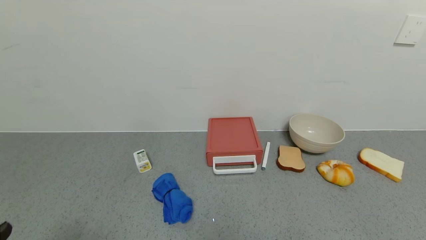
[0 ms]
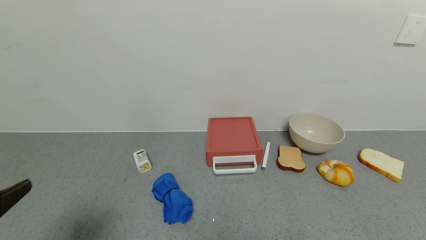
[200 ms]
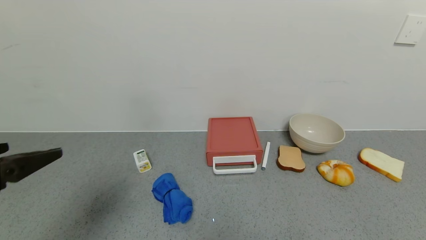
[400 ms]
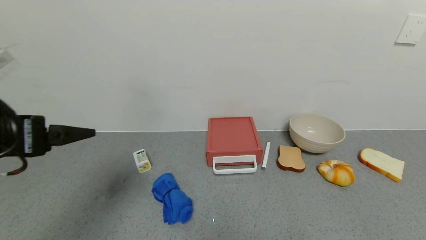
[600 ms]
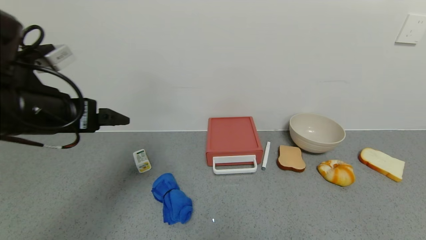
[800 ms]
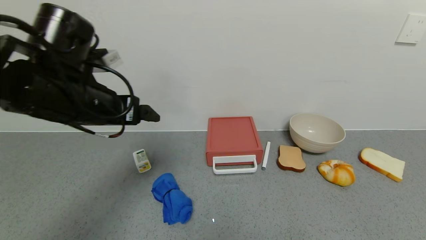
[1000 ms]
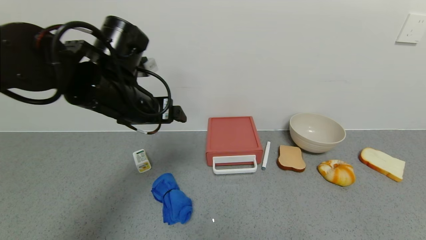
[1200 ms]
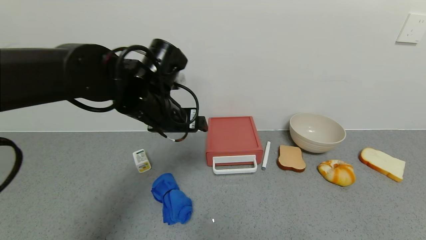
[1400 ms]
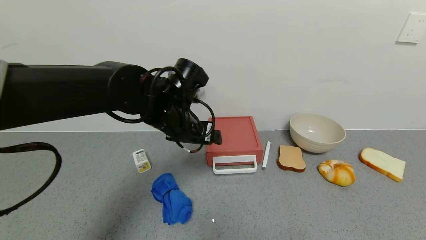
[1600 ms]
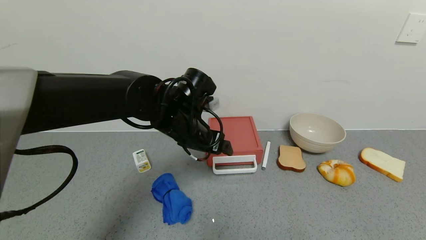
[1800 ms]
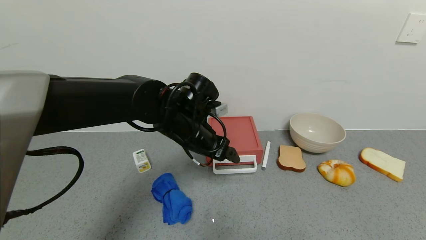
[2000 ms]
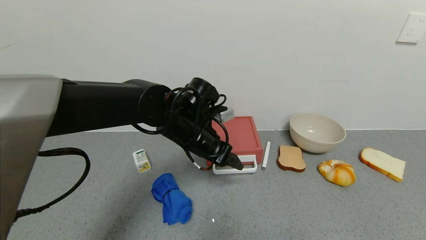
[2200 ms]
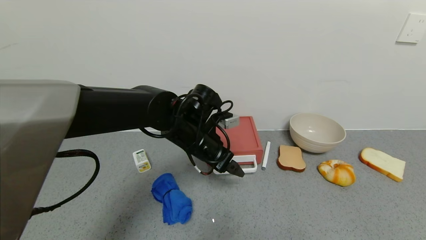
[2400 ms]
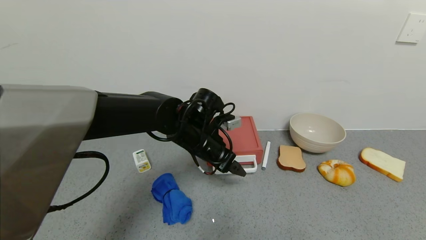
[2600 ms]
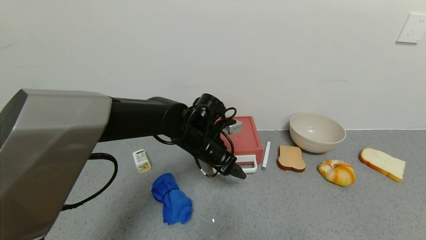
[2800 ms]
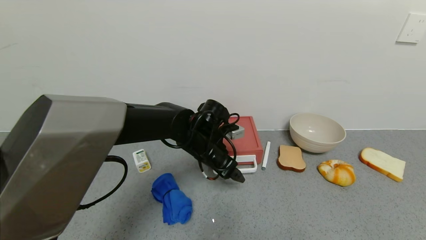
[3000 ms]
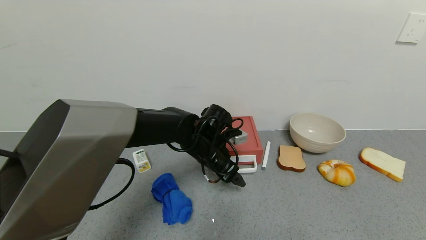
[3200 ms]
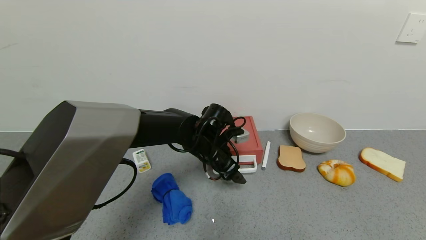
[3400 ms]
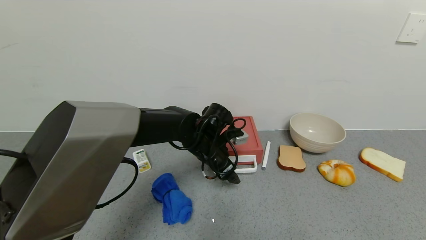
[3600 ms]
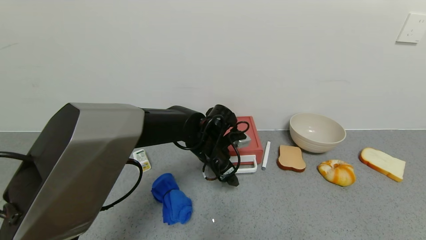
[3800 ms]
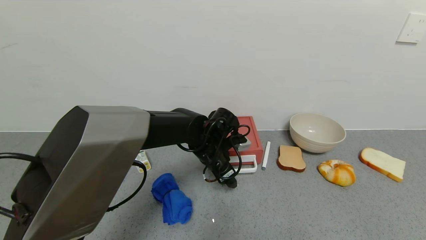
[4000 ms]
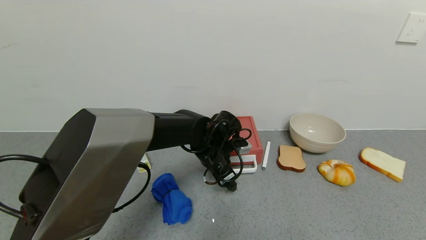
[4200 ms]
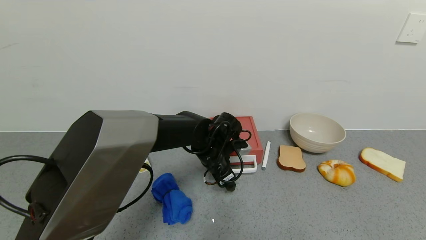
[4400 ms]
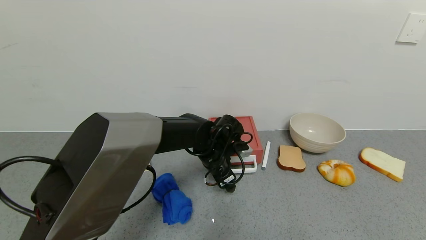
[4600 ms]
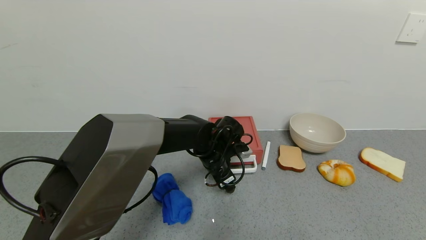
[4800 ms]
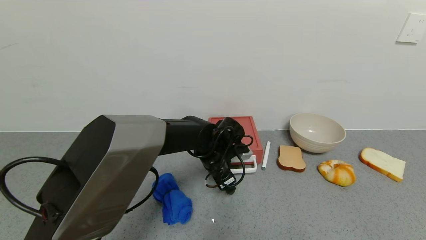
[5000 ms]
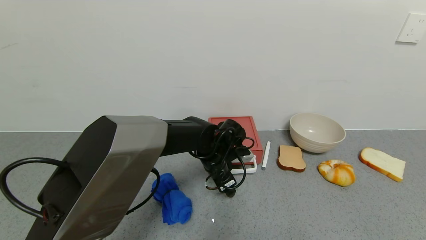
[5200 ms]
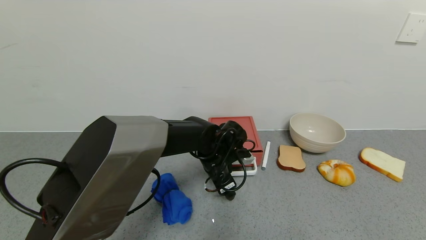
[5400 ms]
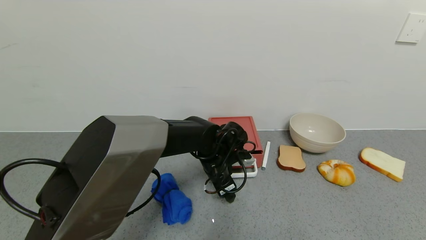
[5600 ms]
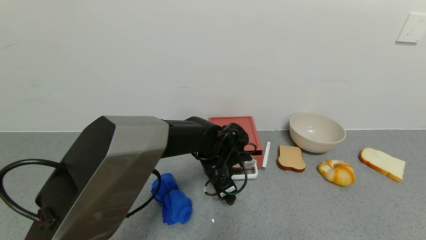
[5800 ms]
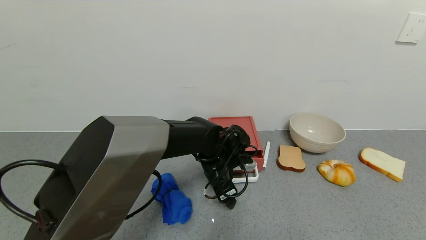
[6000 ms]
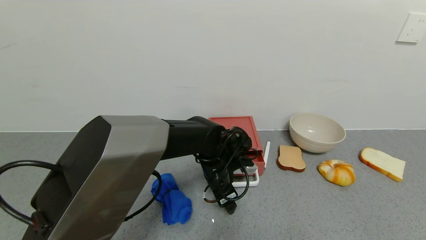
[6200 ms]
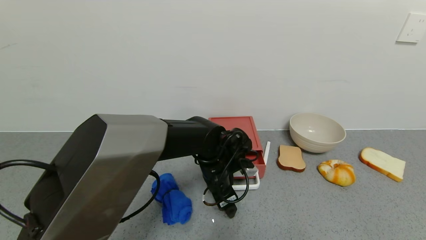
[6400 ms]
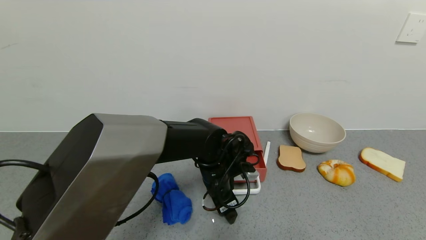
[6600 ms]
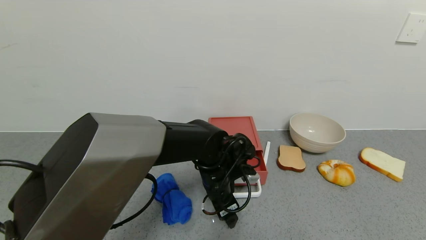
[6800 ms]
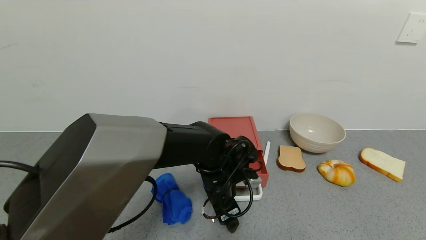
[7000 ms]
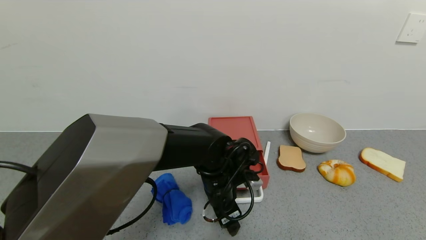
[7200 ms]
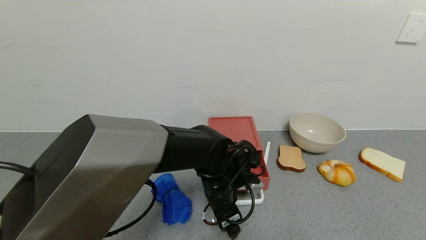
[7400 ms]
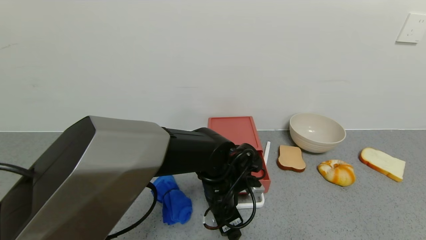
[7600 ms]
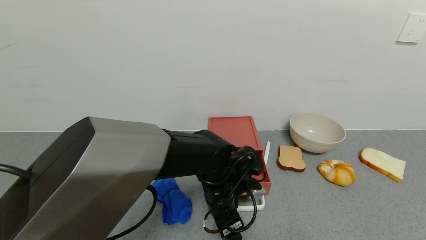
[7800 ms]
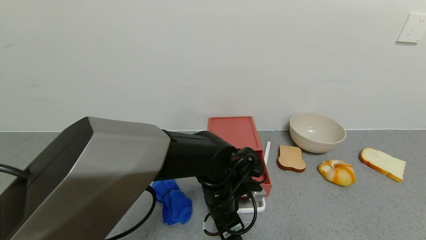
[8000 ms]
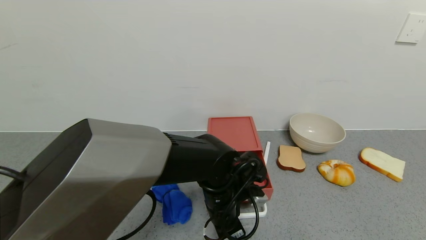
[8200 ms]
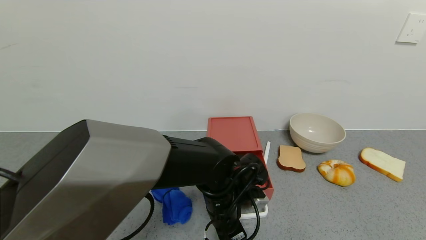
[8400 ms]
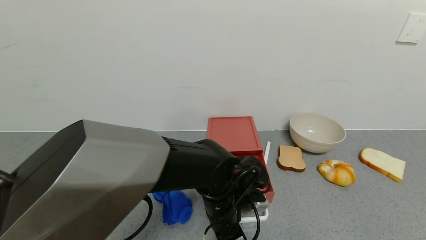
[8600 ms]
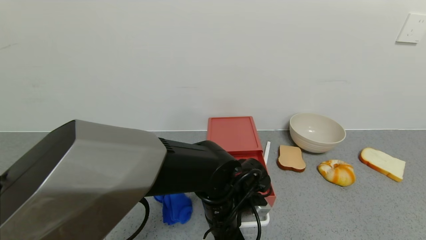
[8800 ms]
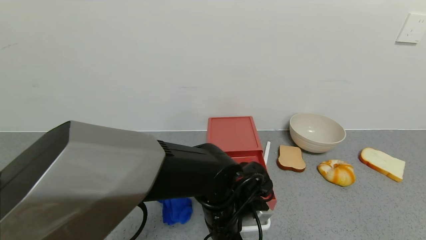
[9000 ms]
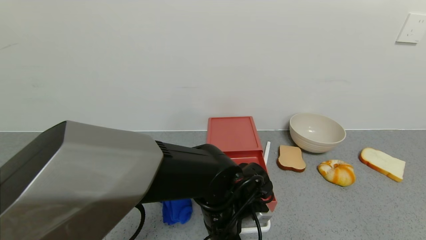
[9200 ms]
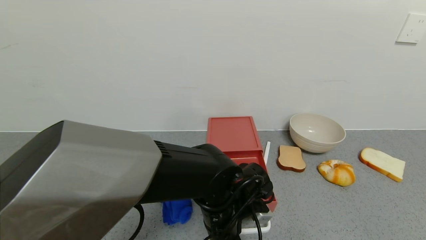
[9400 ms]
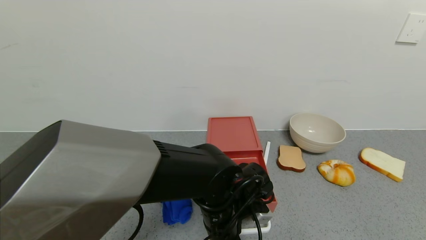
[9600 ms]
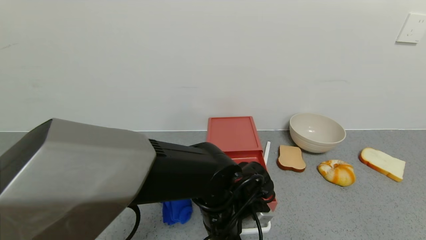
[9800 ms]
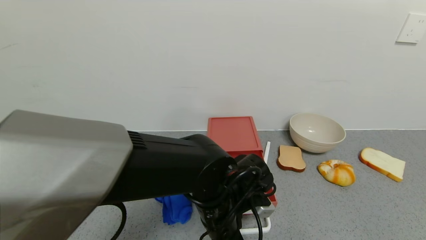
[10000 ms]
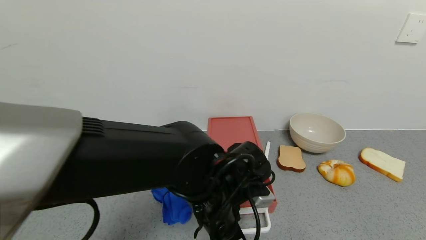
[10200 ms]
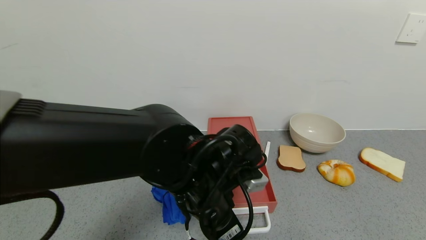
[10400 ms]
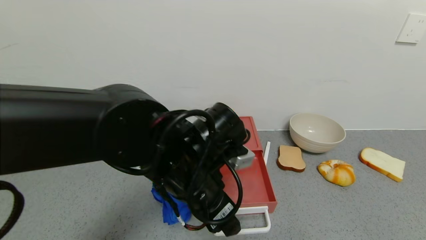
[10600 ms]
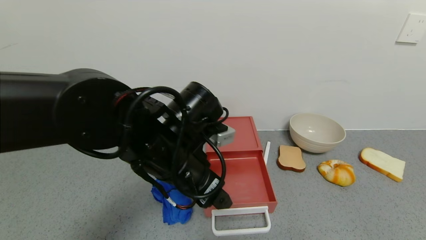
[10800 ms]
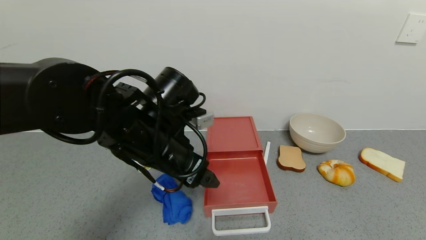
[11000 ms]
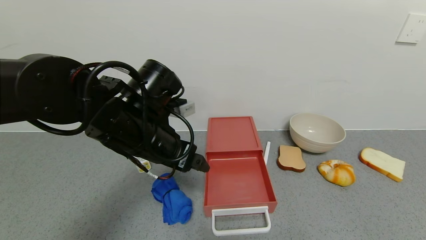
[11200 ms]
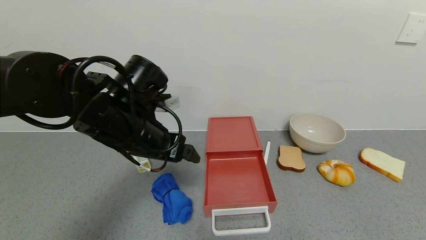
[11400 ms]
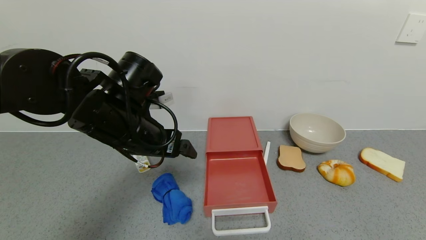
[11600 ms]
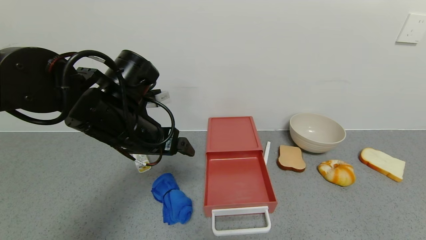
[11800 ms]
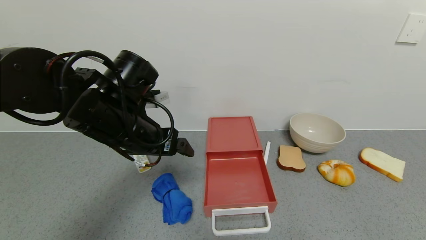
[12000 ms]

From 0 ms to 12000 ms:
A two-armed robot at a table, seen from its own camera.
Task of the whole recording: use the gripper to open the drawer and close the red drawer.
Step, from 0 ms to 10600 ms: Open the red drawer with the left gripper.
From 0 ms to 1600 ms: The left gripper goes about 40 cm forward and to the right.
From 1600 ms to 3000 ms: The left gripper heads downward, covering roughly 10 cm.
From 4400 ms to 6000 ms: The grippers move only a little.
From 6000 ms to 7600 ms: The left gripper is displaced backward by about 5 cm.
From 7600 ms to 9000 ms: The grippers move only a little.
From 9000 ms to 10400 ms: The left gripper is displaced upward by approximately 10 cm.
From 10400 ms to 12000 ms: The left gripper shifts approximately 15 cm to the left, upward and forward.

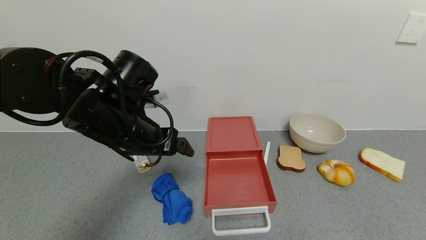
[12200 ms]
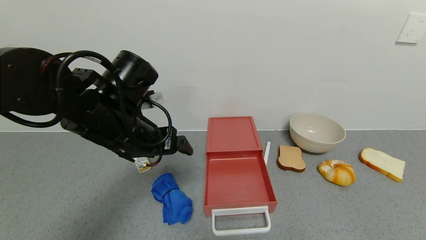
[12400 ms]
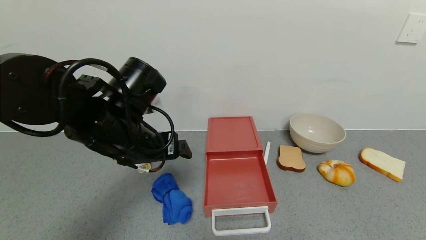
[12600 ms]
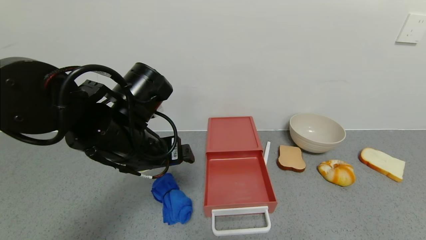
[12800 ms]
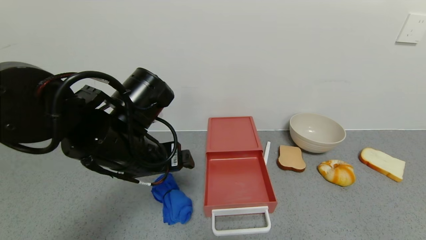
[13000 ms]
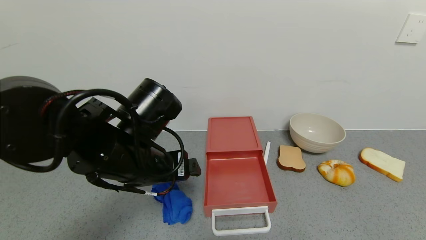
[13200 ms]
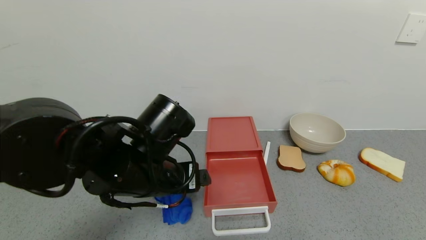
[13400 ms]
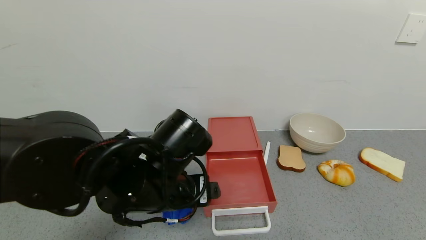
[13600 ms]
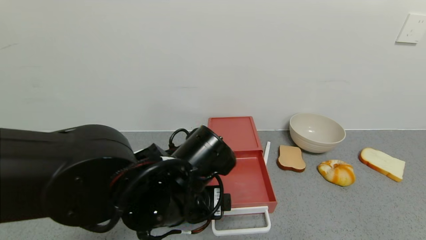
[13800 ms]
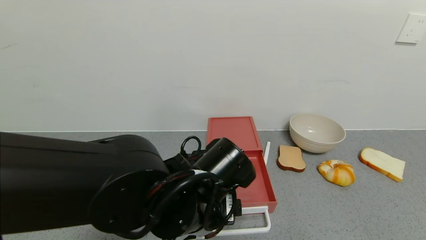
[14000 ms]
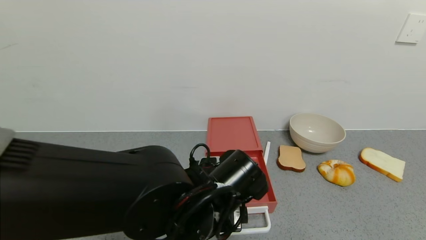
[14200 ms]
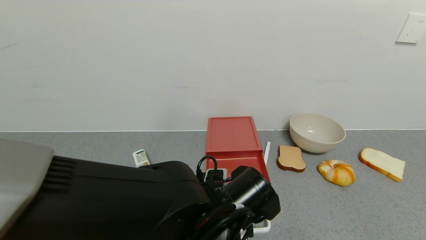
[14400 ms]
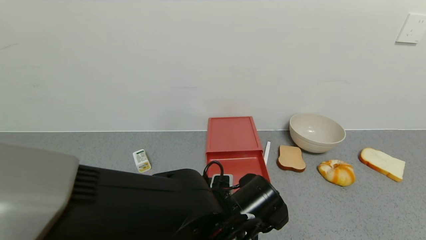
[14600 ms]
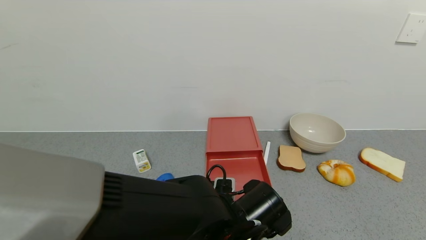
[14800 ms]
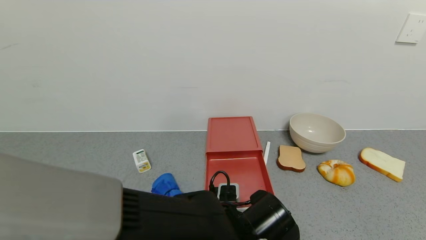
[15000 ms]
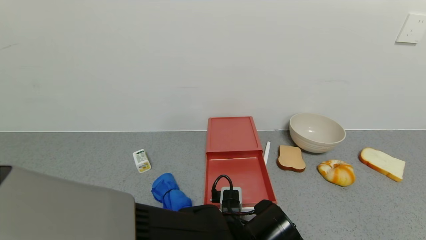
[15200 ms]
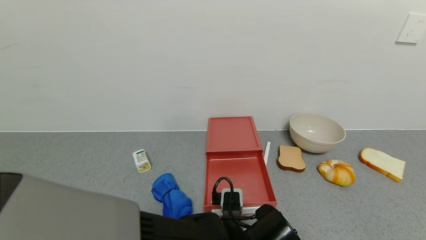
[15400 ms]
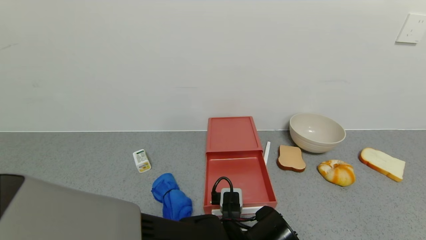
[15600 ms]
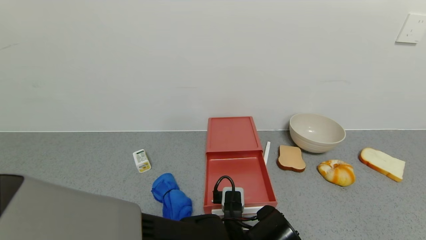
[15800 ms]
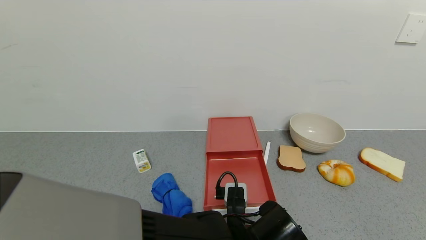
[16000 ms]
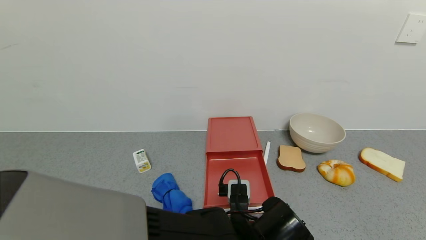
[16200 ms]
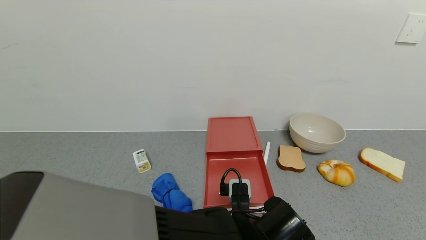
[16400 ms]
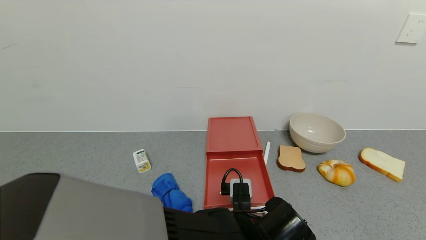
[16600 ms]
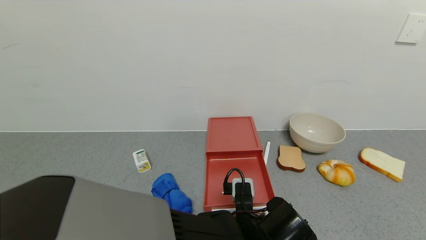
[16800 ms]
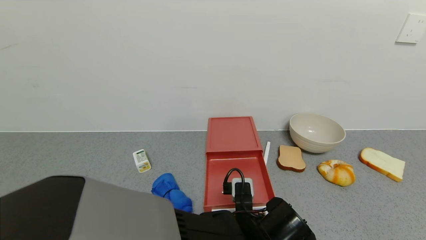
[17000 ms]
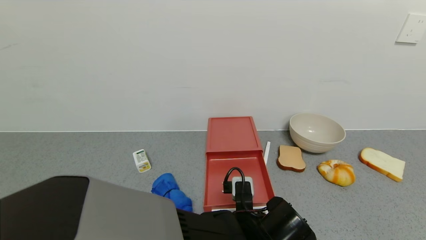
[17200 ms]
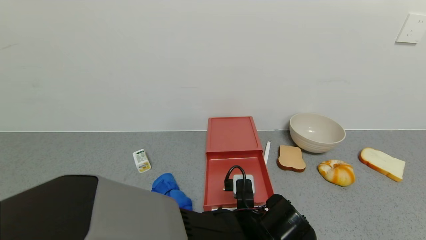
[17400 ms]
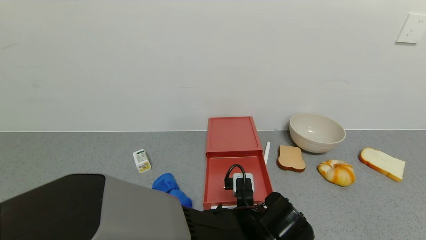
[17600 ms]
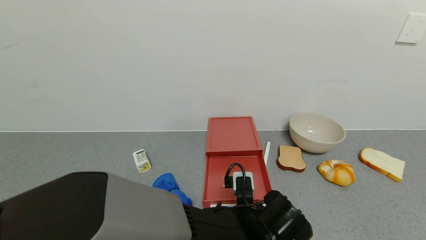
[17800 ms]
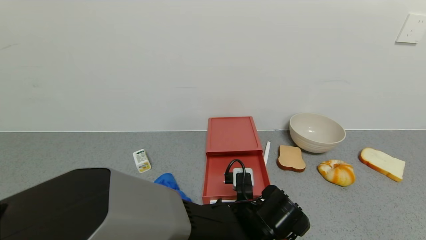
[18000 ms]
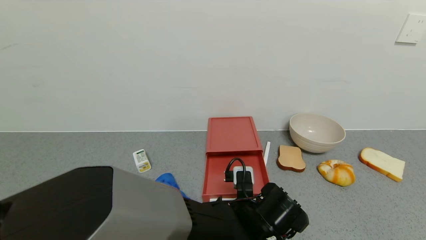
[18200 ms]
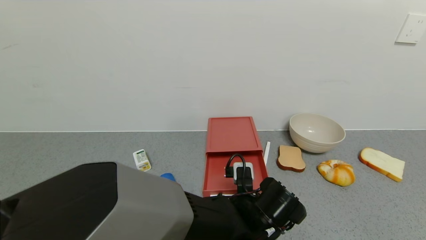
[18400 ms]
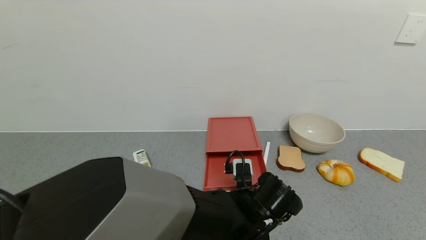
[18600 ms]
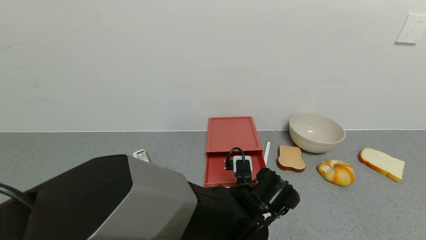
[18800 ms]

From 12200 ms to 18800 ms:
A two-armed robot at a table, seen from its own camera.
Task of the whole recording: use the gripper to open the drawer and close the red drawer.
From 12200 ms to 13800 ms: The left gripper travels to the right, backward and downward by about 15 cm.
From 13800 ms to 15400 ms: The left gripper heads downward and to the right, covering roughly 15 cm.
From 15400 ms to 17200 ms: The grippers stay close to where they were, moving slightly.
From 17200 ms to 18800 ms: The left gripper shifts roughly 5 cm forward.
